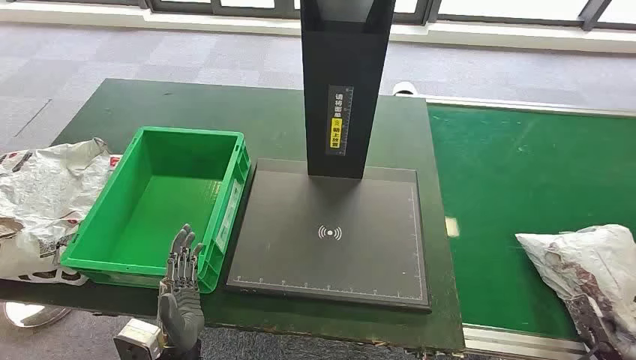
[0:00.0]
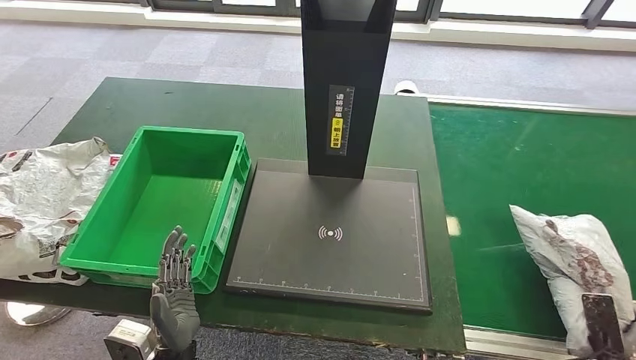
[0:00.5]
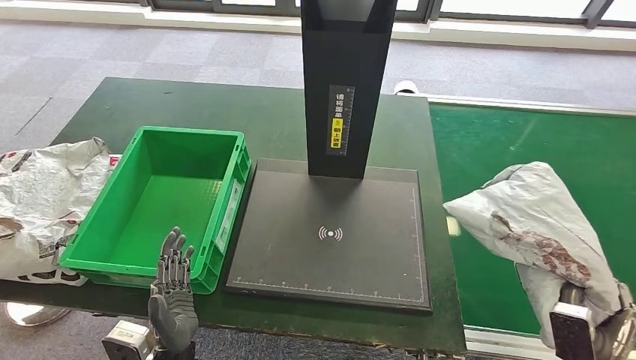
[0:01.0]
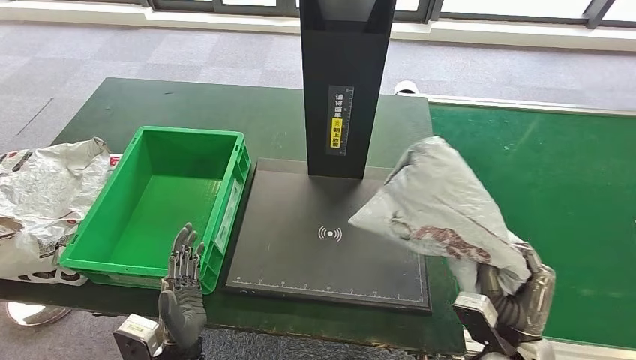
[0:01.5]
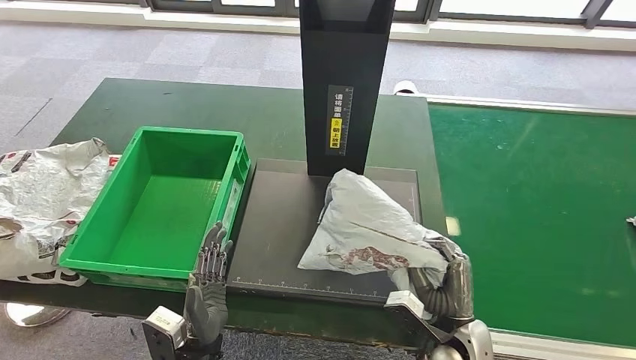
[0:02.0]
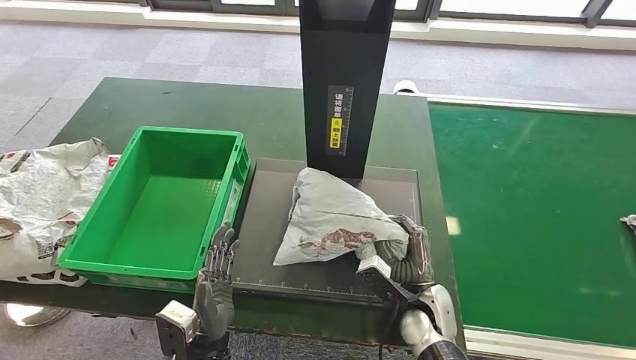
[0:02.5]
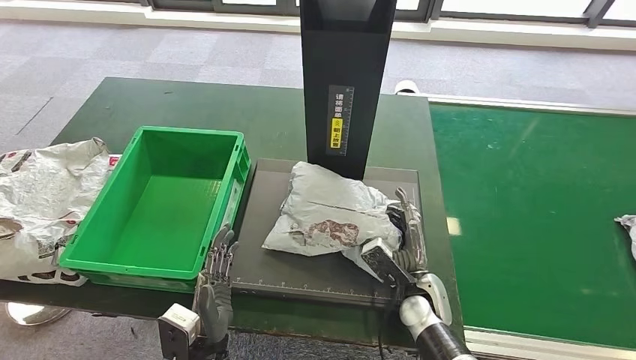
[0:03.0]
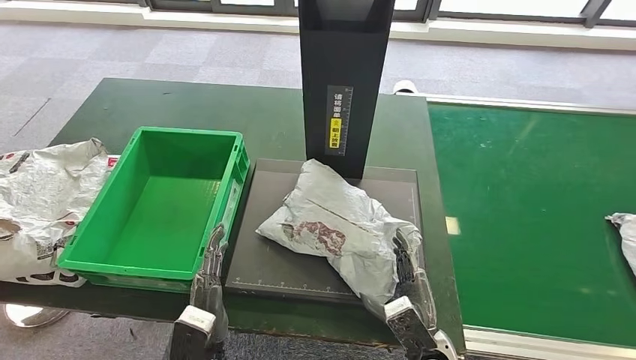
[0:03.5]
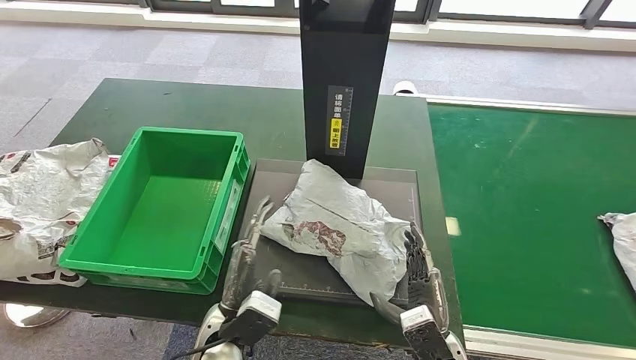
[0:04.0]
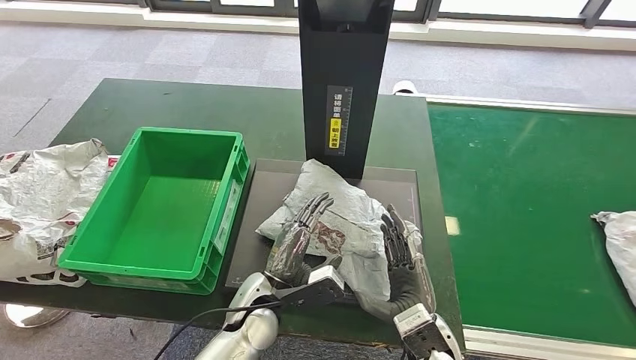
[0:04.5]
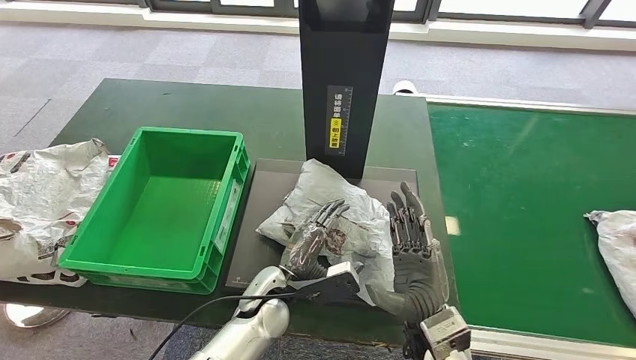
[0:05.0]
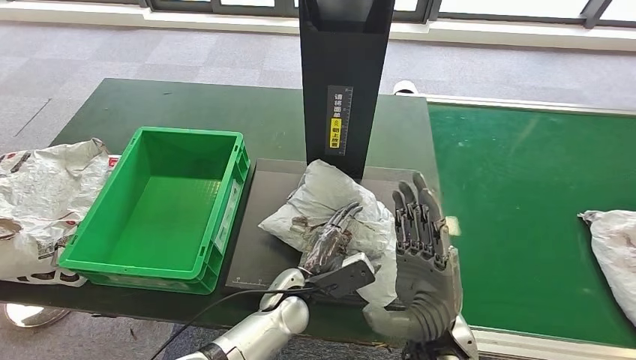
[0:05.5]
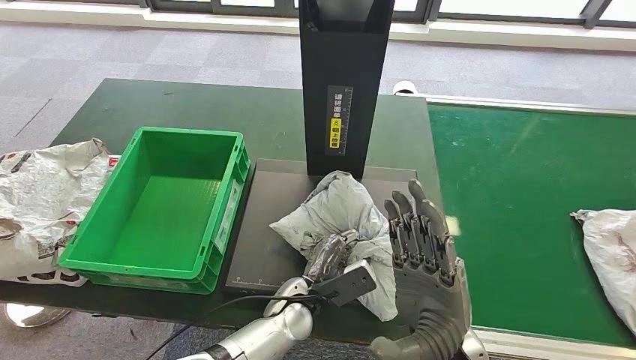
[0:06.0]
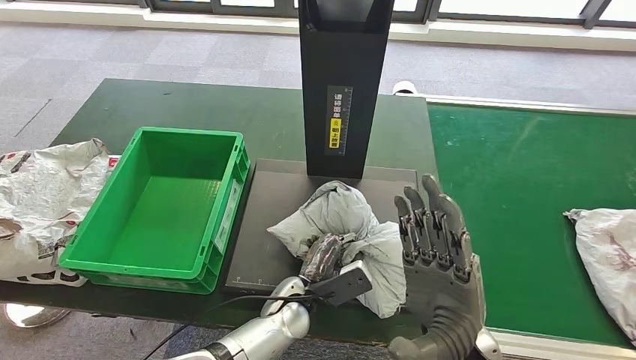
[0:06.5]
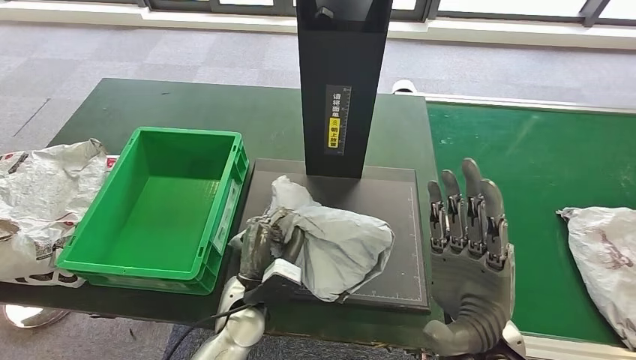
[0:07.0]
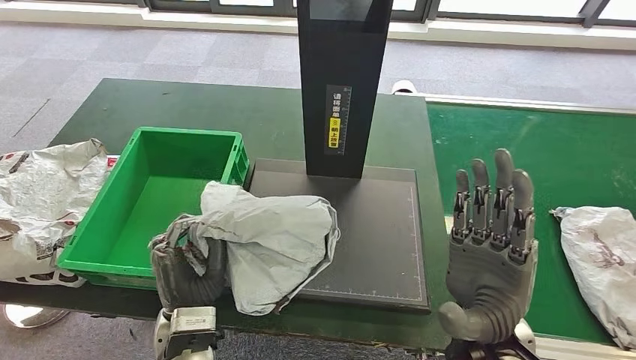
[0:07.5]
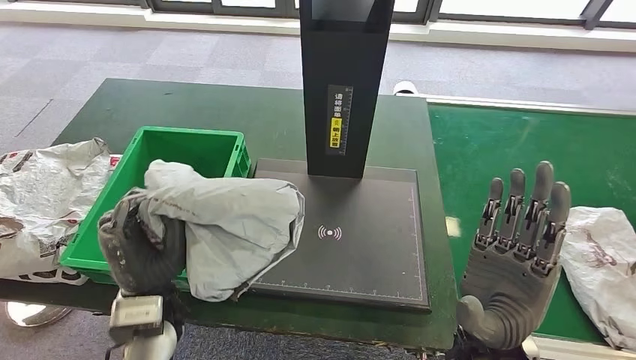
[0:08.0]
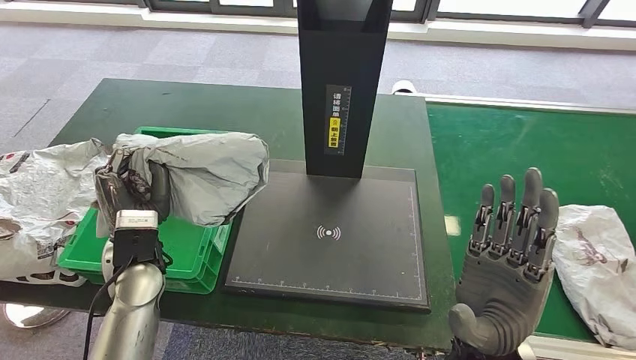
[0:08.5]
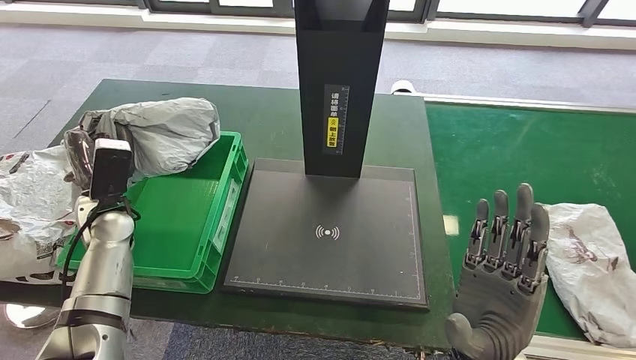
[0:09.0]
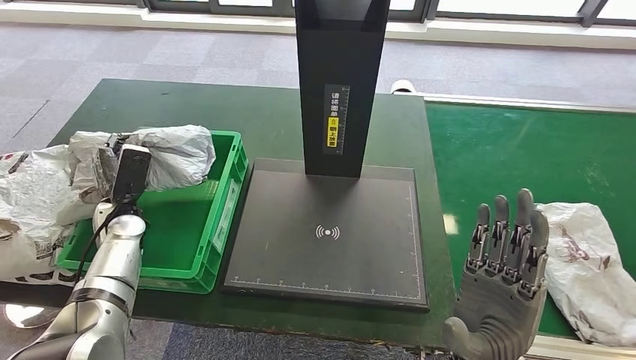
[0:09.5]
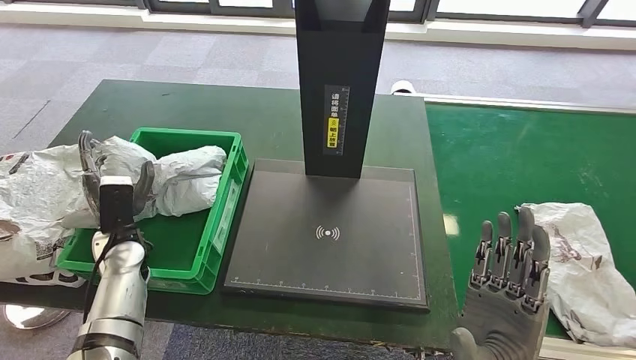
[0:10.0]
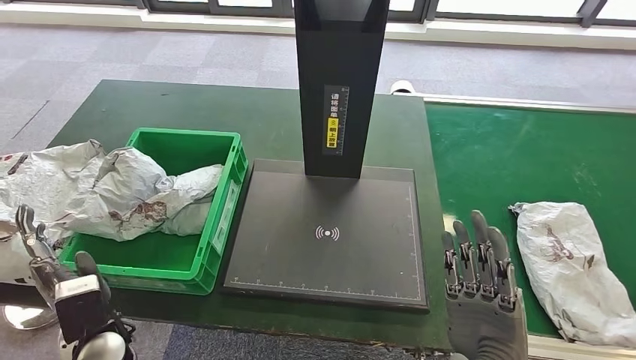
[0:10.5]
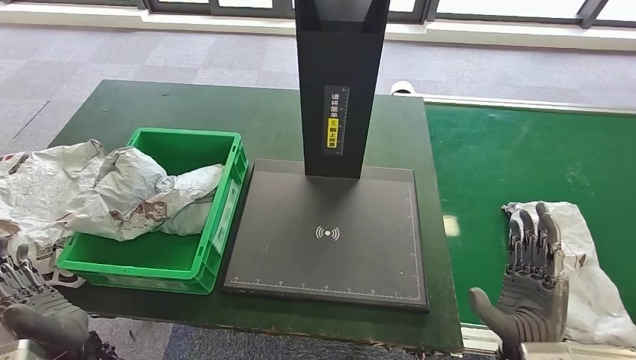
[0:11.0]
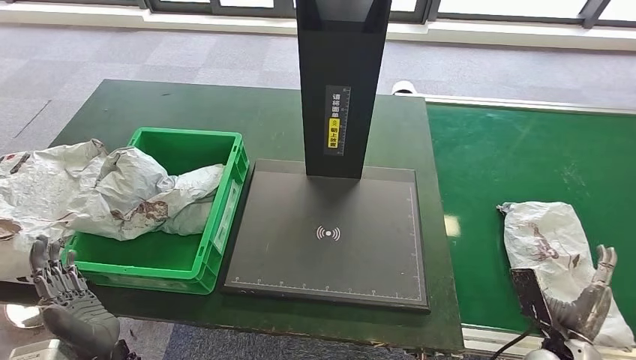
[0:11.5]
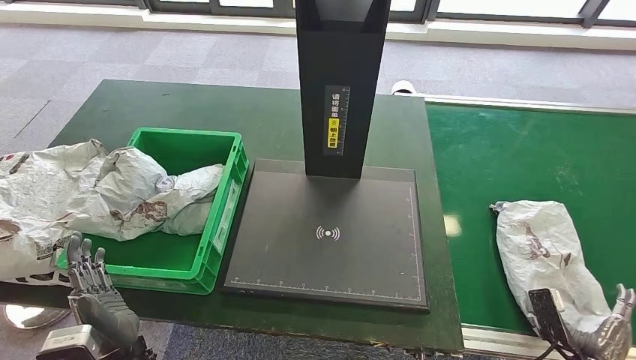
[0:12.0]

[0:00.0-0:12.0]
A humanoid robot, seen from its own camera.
Step, 0:00.0 to 0:01.5: Take the parcel off the conveyor belt.
Step, 0:02.0 to 0:04.0: Place the parcel onto the inbound machine.
Step, 0:04.5 to 0:07.5: Pick up the parcel from the inbound machine.
Step, 0:08.5 to 0:10.5: Put the parcel inside the courier box.
0:02.0 to 0:04.0: The left hand changes place by about 5 cm; the right hand goes forward and returns, about 5 cm each way.
0:04.0 to 0:06.0: The left hand heads to the right and forward, covering approximately 10 cm. Meanwhile the right hand is displaced upward by about 15 cm.
0:10.0 to 0:12.0: The right hand moves to the right and downward, about 30 cm. Meanwhile the left hand travels backward and to the right by roughly 20 cm.

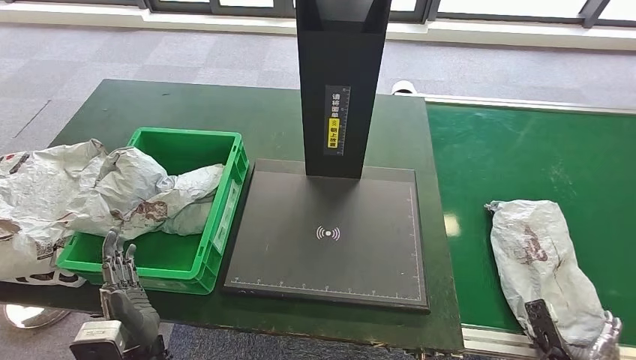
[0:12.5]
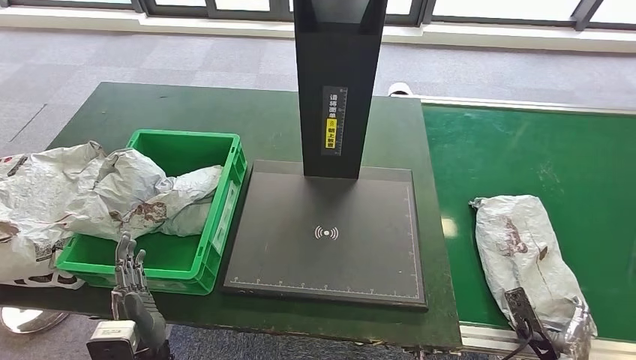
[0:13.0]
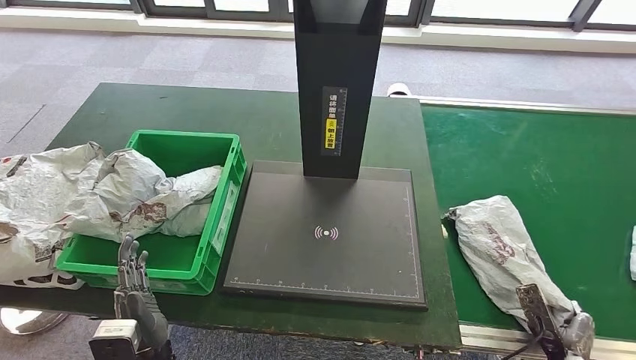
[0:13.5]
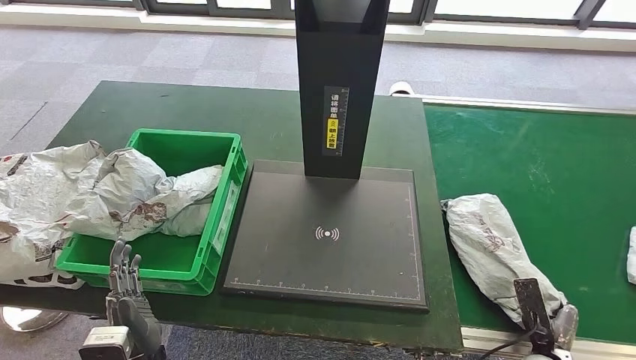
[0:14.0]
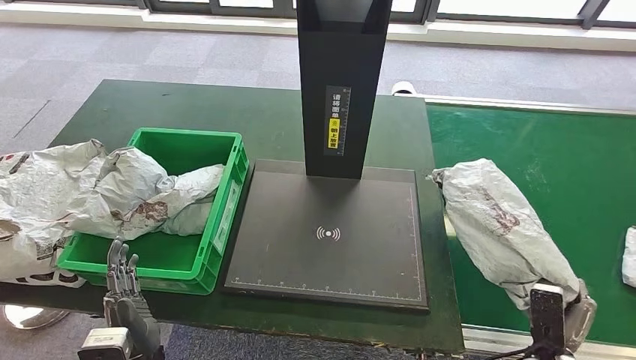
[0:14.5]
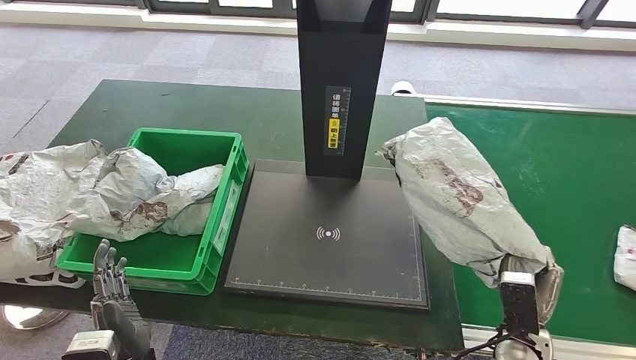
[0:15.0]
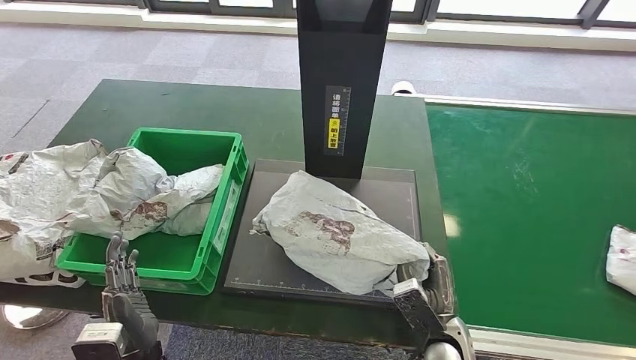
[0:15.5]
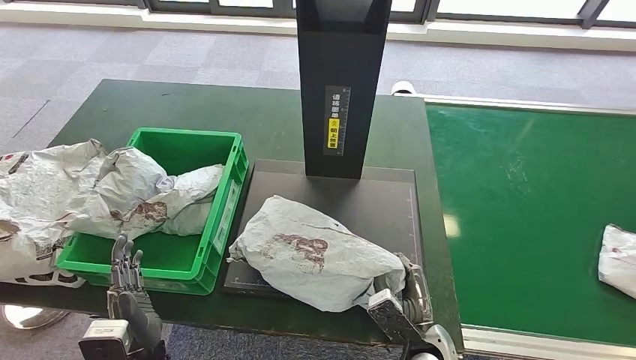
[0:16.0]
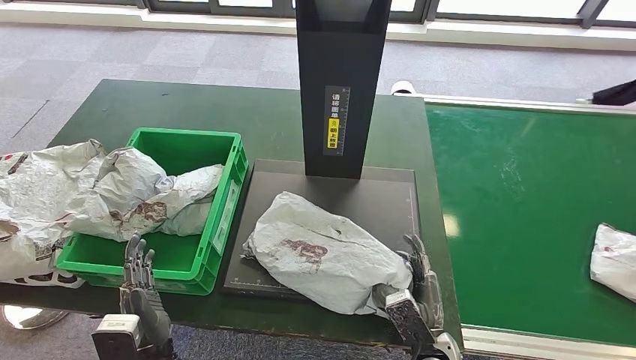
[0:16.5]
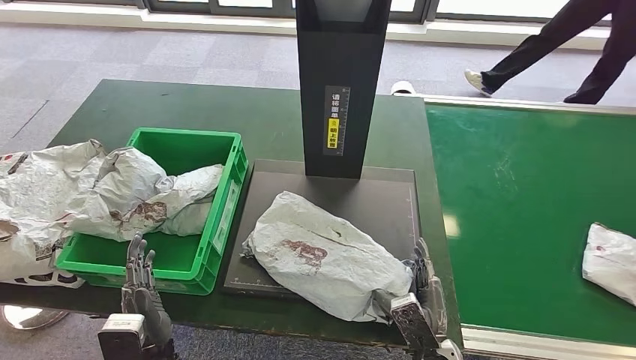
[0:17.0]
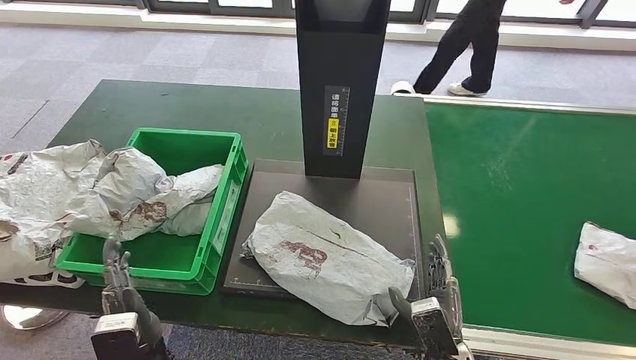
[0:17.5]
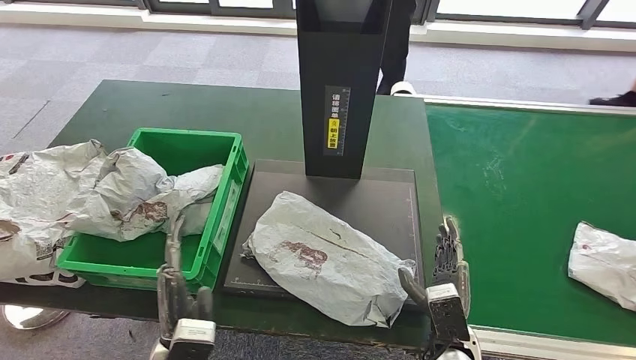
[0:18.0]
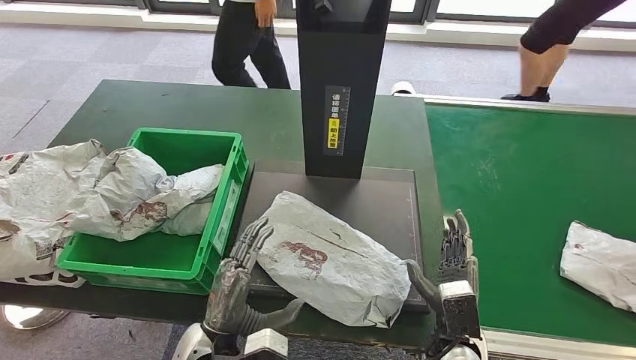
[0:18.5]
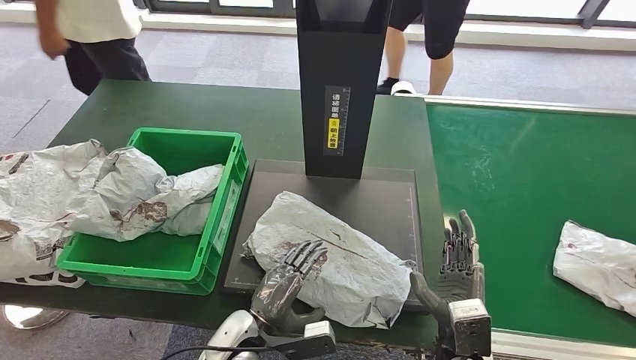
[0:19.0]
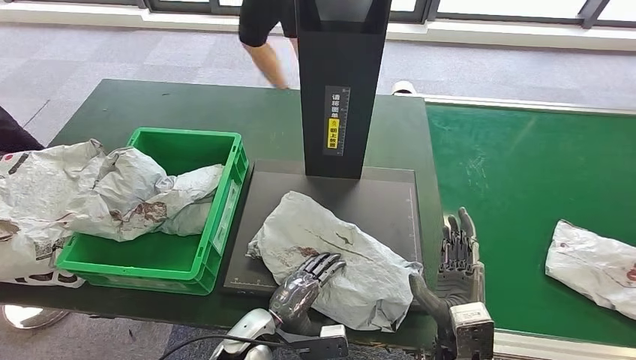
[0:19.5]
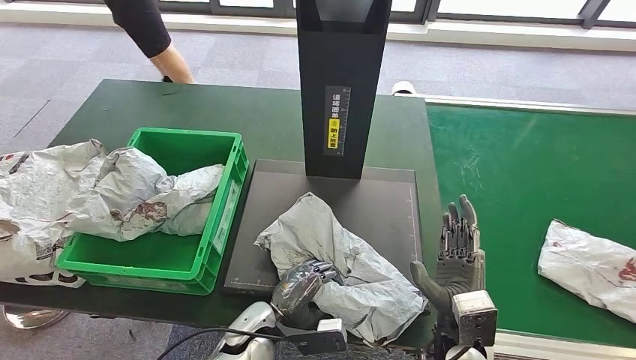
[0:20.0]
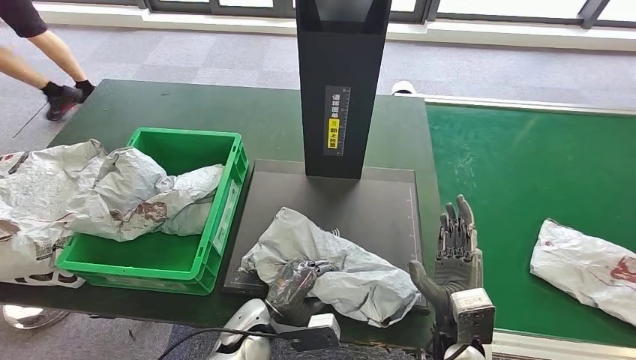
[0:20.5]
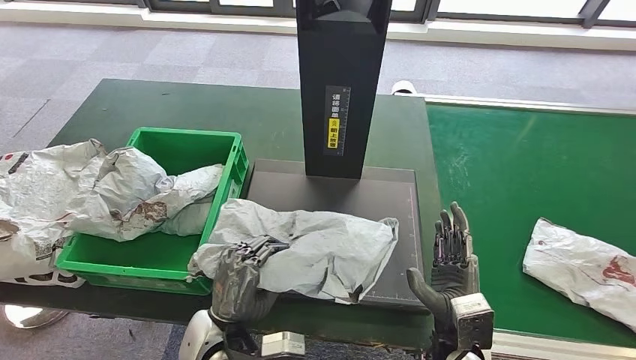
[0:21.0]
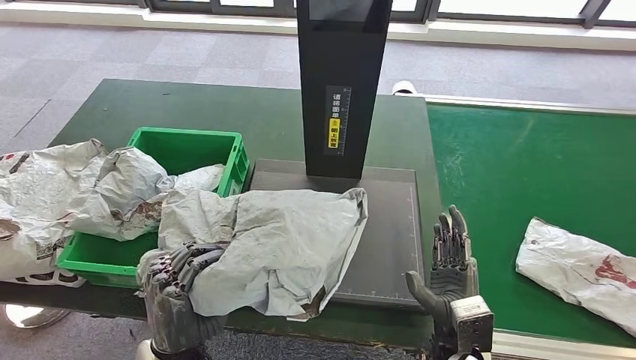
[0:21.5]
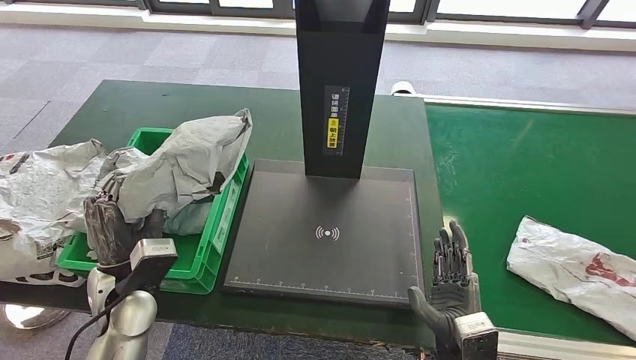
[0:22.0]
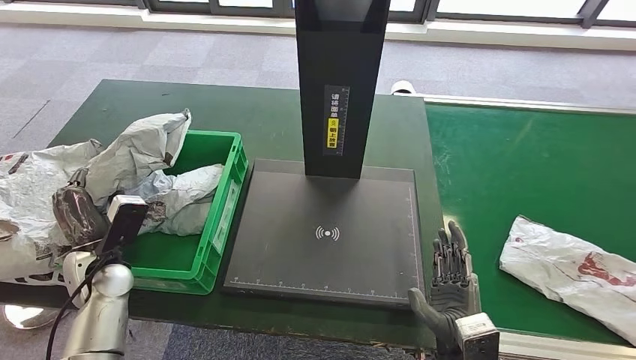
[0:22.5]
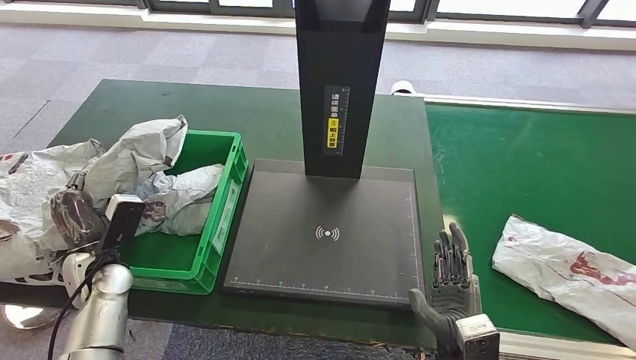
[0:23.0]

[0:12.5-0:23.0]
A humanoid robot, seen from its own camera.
Step, 0:12.5 to 0:15.0: Pick up the parcel from the conveyor belt.
Step, 0:15.5 to 0:18.0: Place the parcel onto the inbound machine.
Step, 0:18.5 to 0:21.0: Pick up the parcel from the inbound machine.
0:12.5 to 0:14.5: The right hand moves to the left, about 5 cm.
0:16.5 to 0:19.0: The right hand heads upward, covering about 5 cm; the left hand heads to the right and forward, covering some 10 cm.
